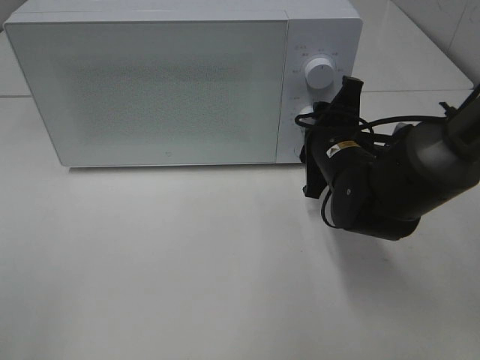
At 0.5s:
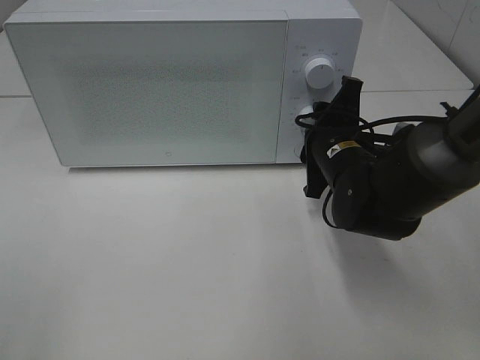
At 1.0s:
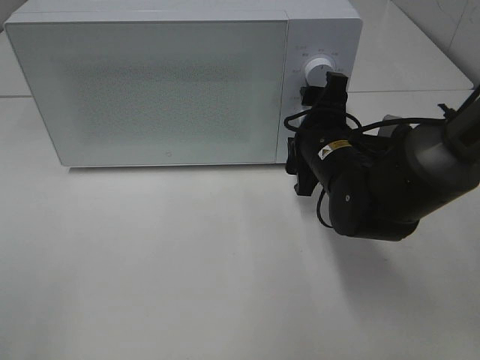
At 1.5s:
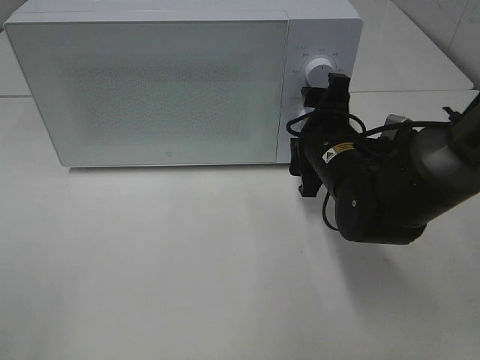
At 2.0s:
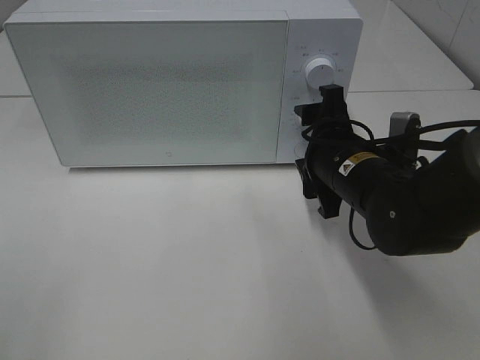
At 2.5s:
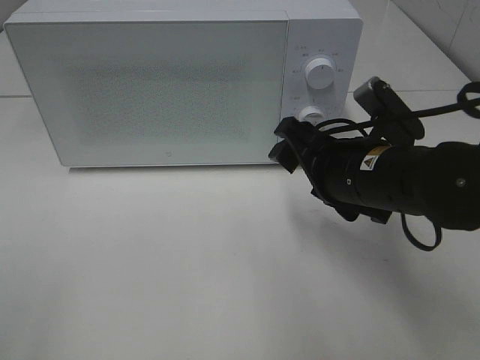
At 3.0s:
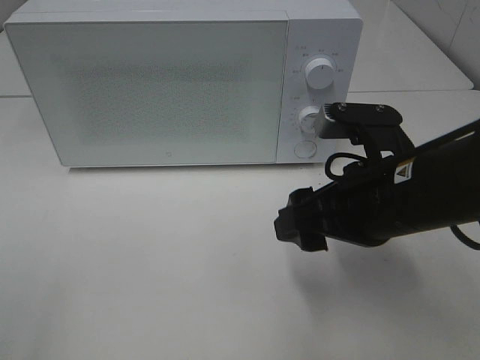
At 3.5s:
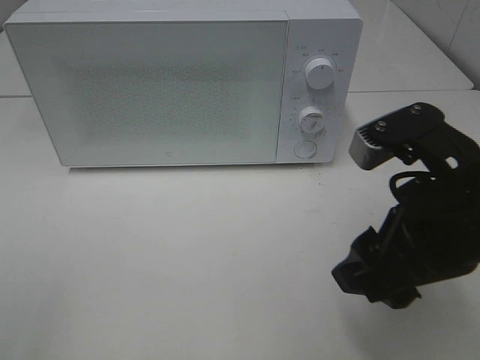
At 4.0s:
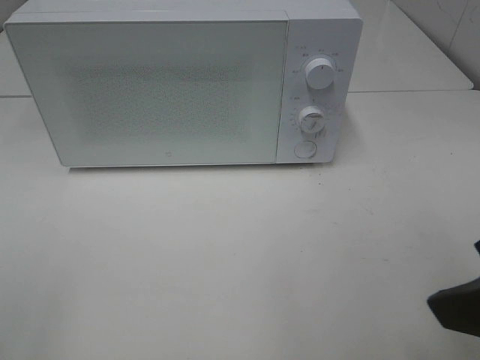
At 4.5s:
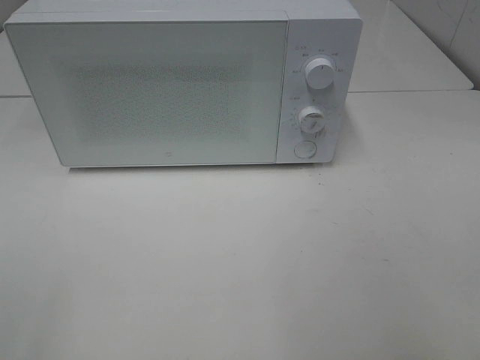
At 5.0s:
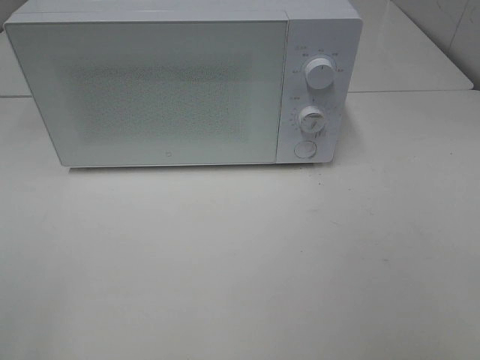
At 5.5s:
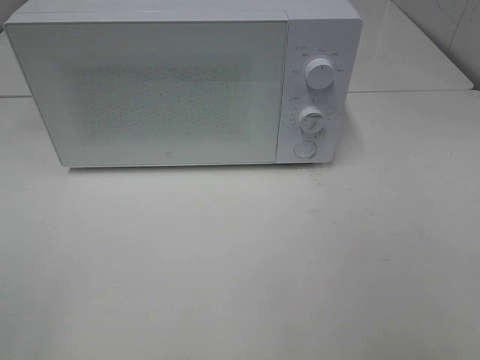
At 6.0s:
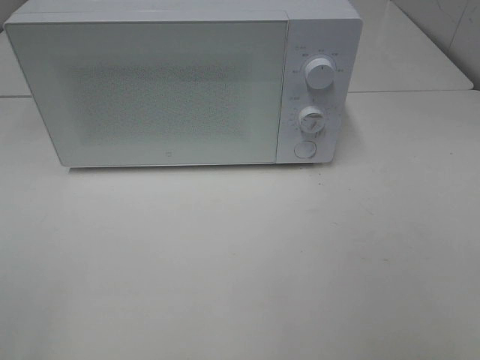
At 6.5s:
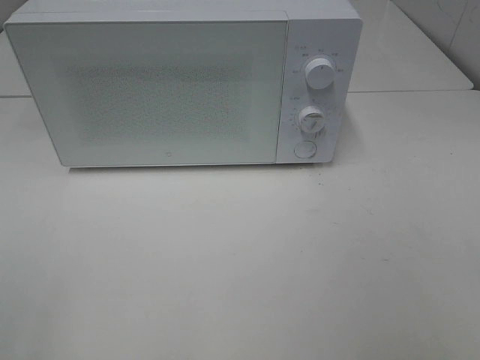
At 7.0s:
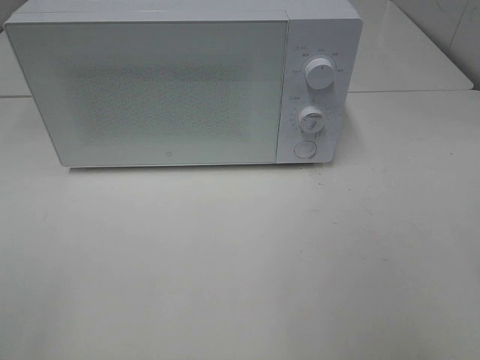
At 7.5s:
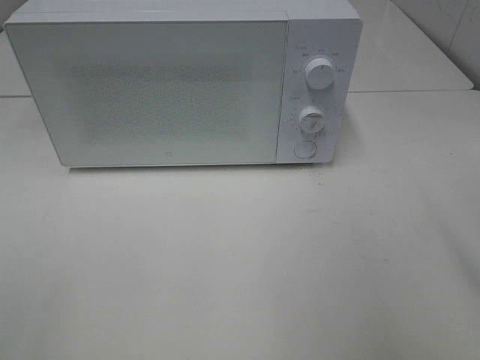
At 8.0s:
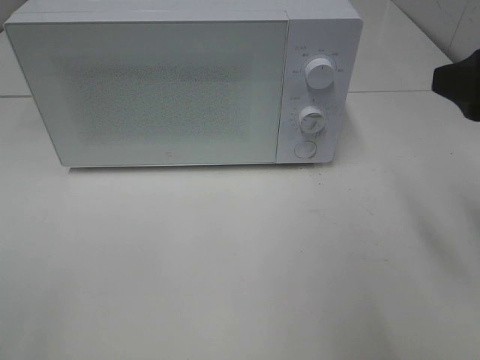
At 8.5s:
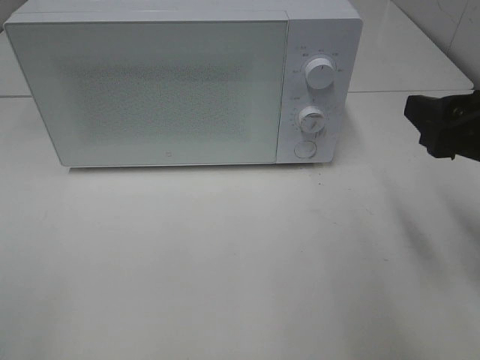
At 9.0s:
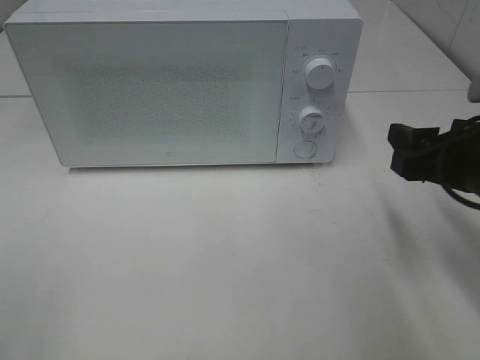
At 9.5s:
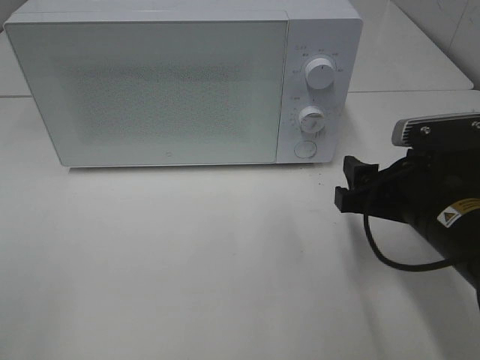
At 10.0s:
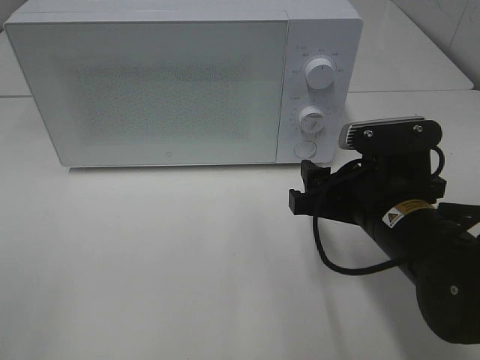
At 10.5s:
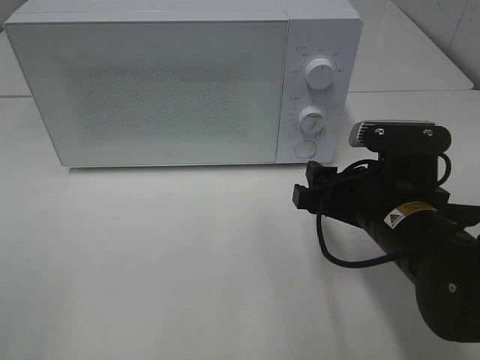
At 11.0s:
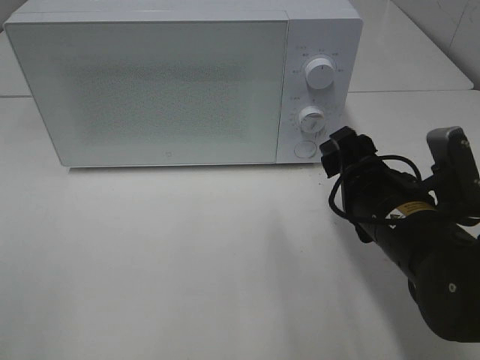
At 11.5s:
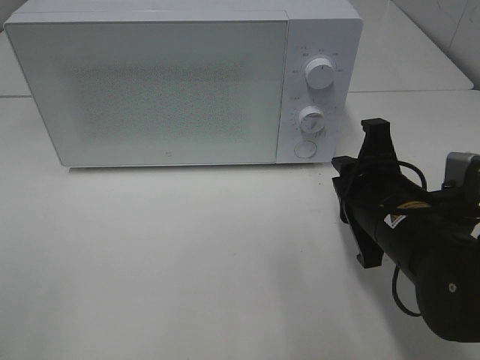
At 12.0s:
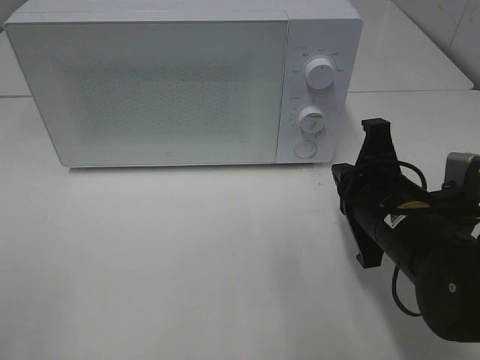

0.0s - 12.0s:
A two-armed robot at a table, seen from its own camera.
Task of the whole recording: Heat Sandwich.
0.0s - 2.0s: The right gripper opens its fingers.
2.0s - 4.0s: The right gripper goes some 25 cm backward, upward and to the right.
4.0s - 6.0s: The right gripper is displaced backward and to the right by some 15 cm.
6.0s - 8.0s: The right gripper is displaced forward by approximately 20 cm.
8.0s - 10.0s: The right gripper travels downward and to the left by approximately 20 cm.
10.0s - 12.0s: The right gripper closes.

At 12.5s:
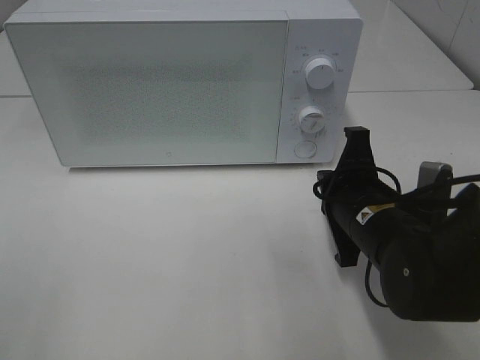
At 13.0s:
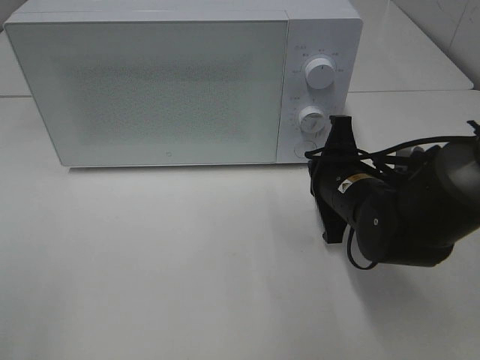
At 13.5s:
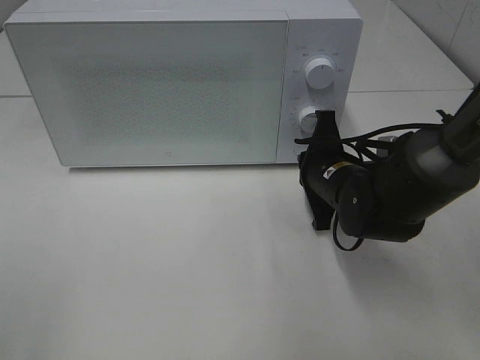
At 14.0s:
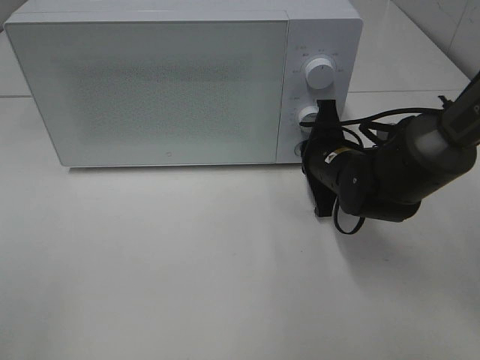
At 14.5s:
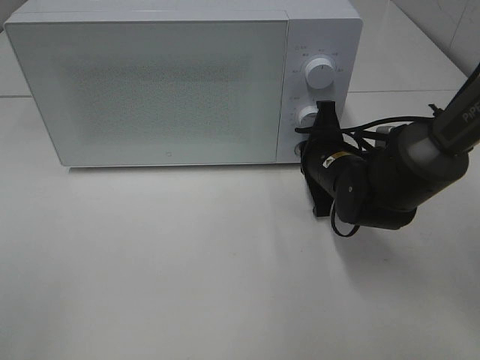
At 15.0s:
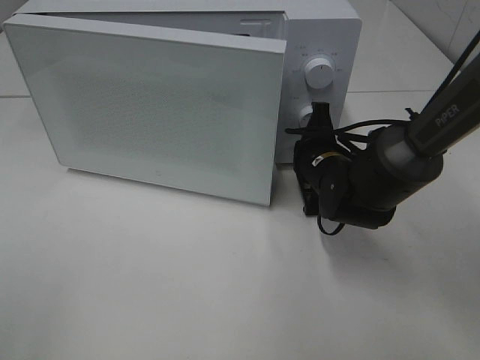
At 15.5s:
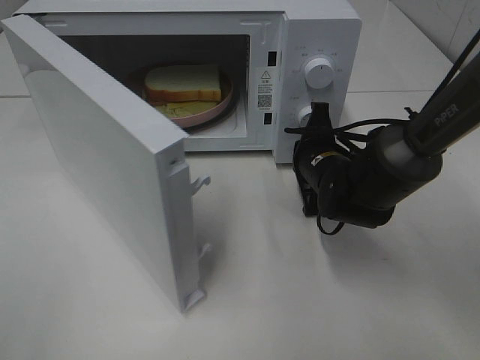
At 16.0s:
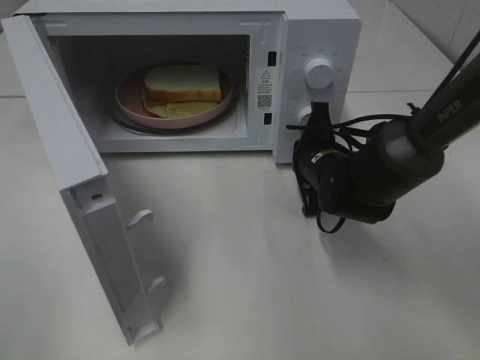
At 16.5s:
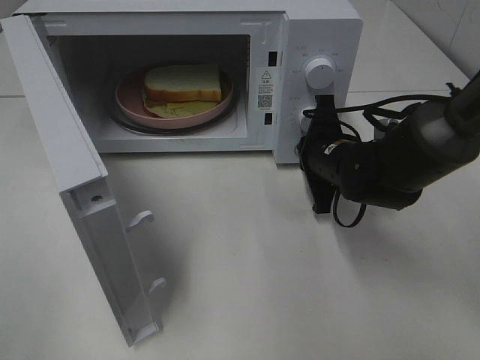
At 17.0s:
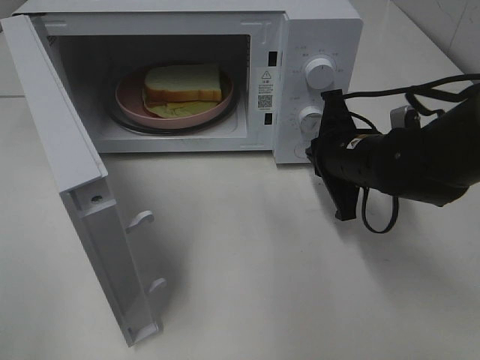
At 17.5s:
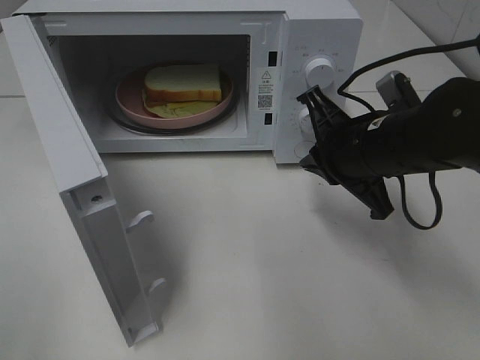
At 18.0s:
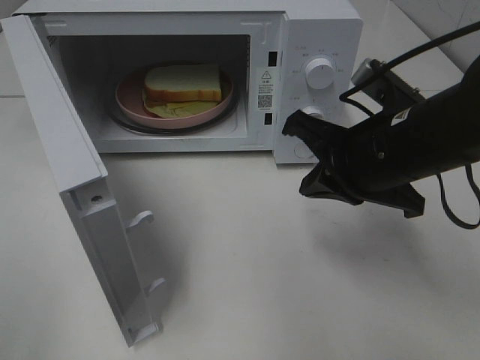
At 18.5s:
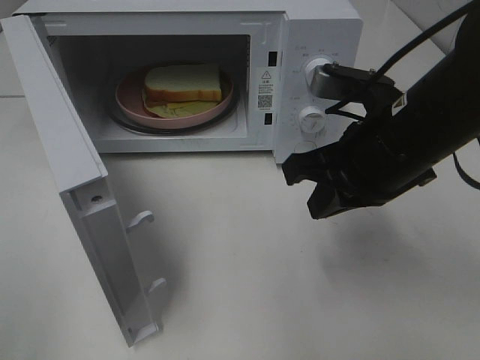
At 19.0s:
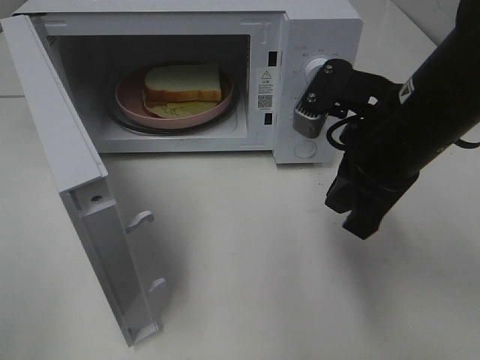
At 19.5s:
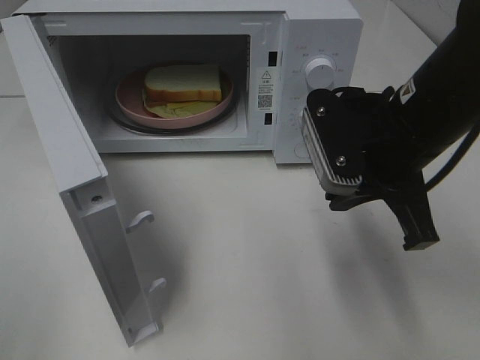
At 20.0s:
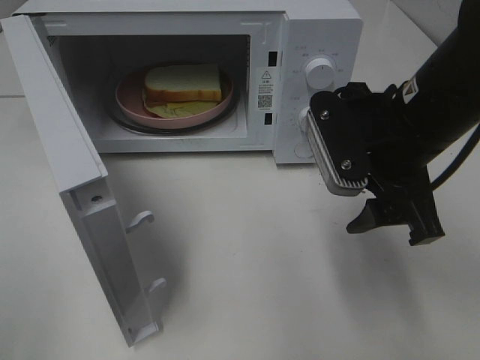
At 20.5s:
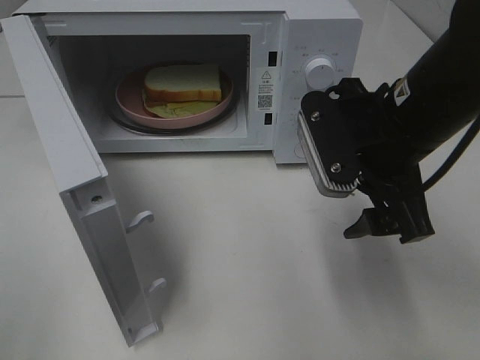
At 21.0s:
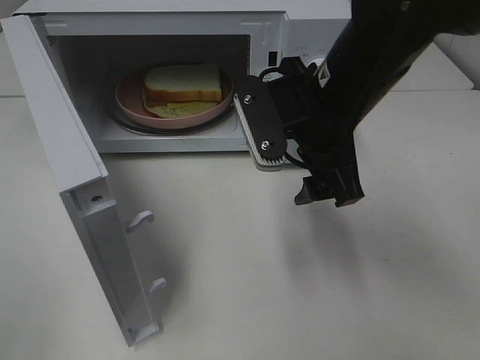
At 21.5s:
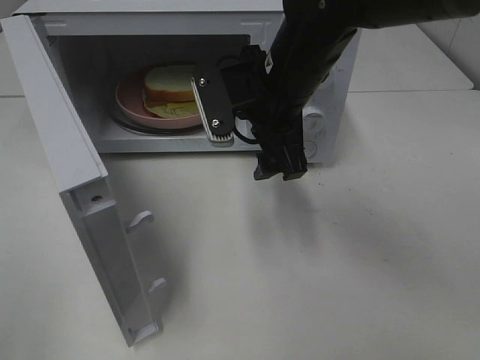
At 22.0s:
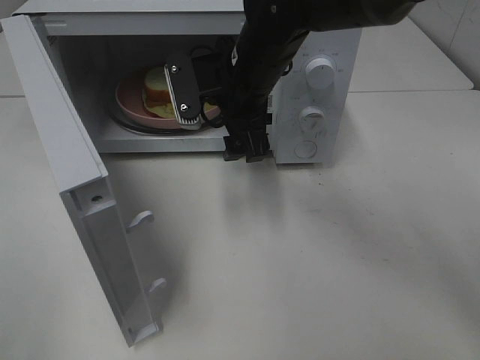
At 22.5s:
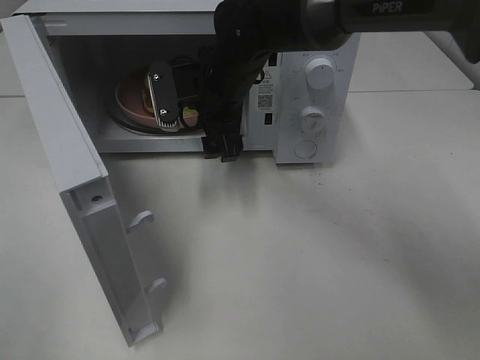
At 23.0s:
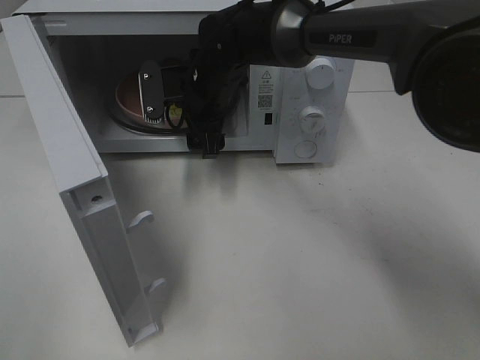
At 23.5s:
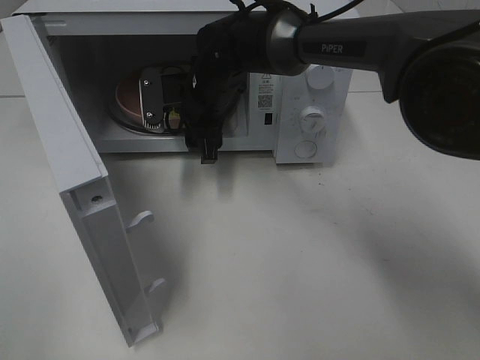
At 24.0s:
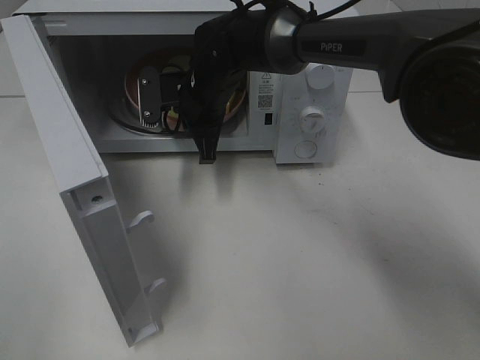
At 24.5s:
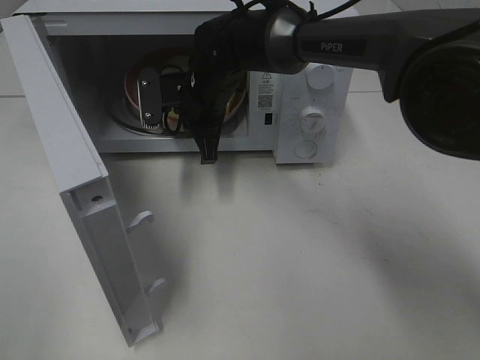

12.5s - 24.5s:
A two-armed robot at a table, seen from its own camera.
Task of the whole recording: Heat Sandwich.
Step, 12.5s - 16.5s: Right hand: press the switch.
Step, 17.0s - 24.0s: Right hand: grab the plate with the sandwich.
12.5s - 14.5s: The right gripper shifts some 10 cm forward.
16.5s - 18.5s: The right gripper is displaced upward and backward by some 15 cm.
18.5s - 20.5s: The right gripper opens up.
20.5s - 22.5s: The right gripper heads forward and to the left, covering approximately 20 cm.
22.5s - 24.5s: The right gripper closes up.

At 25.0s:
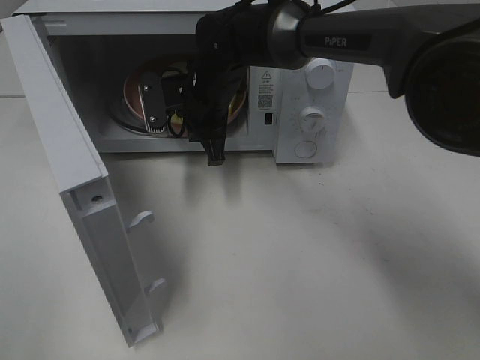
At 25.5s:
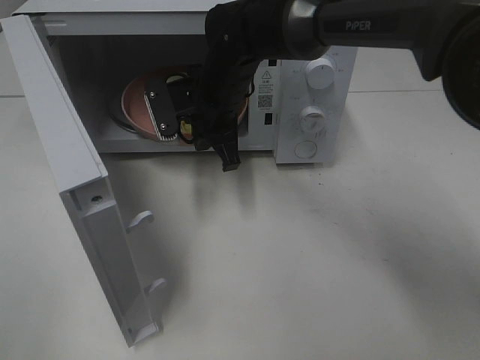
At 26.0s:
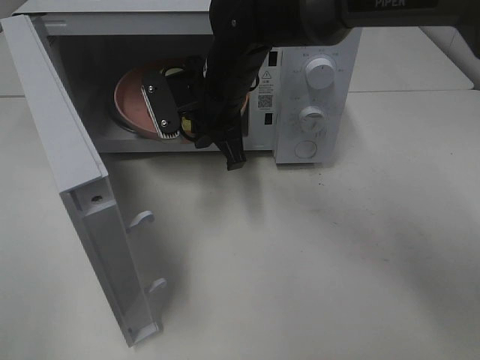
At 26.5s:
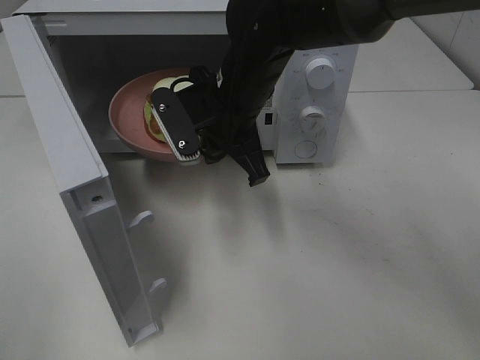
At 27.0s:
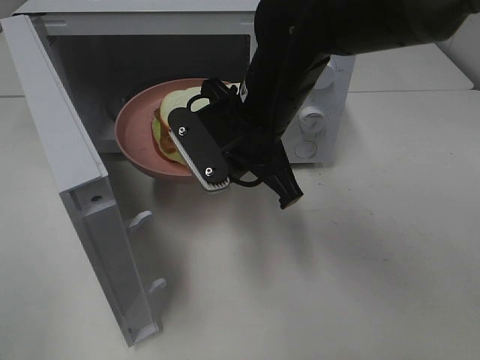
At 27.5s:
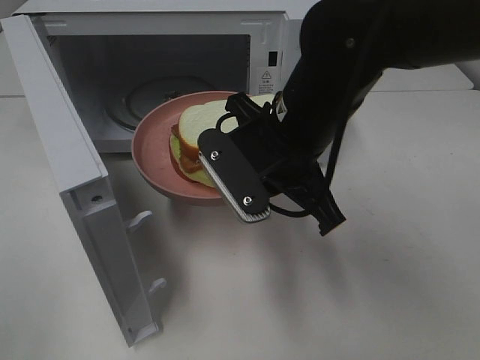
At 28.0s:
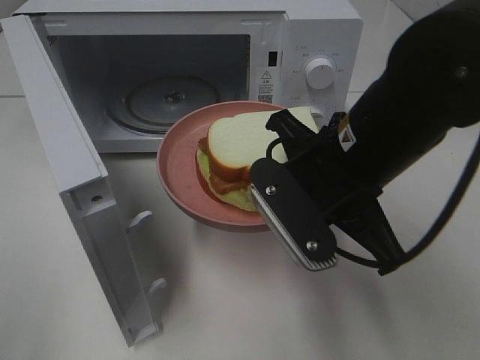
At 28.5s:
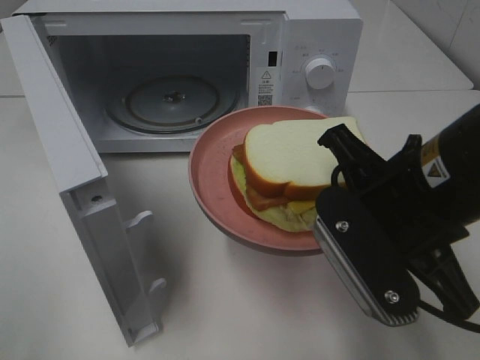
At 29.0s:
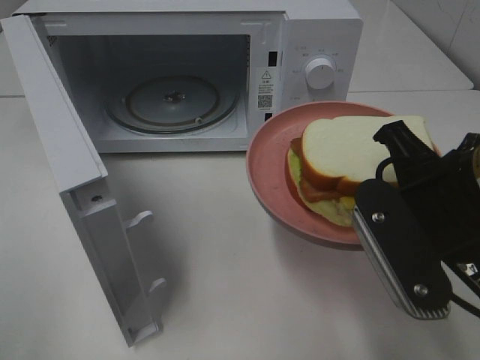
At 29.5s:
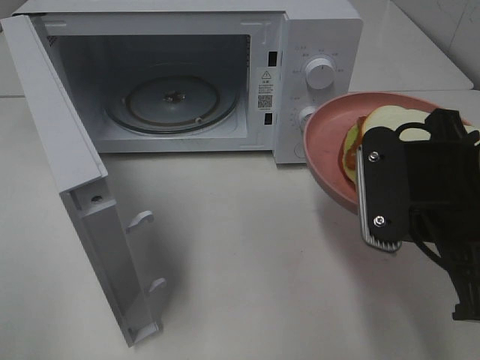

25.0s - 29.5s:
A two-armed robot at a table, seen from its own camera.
Task of the whole recording: Heat Sandwich.
25.0s - 27.0s: The right gripper goes roughly 15 cm backward, to the right and upward.
27.0s - 29.5s: The right gripper moves to the right and backward, approximately 20 cm.
